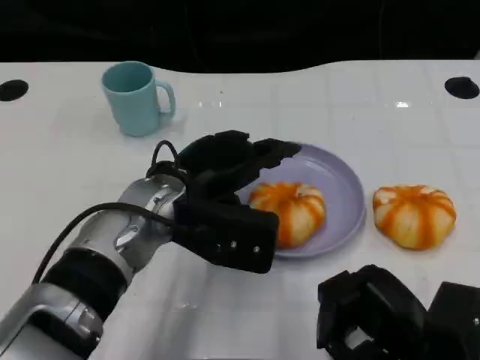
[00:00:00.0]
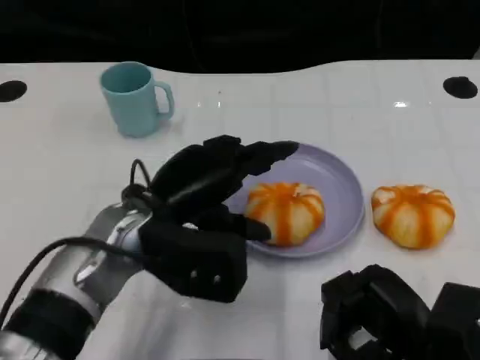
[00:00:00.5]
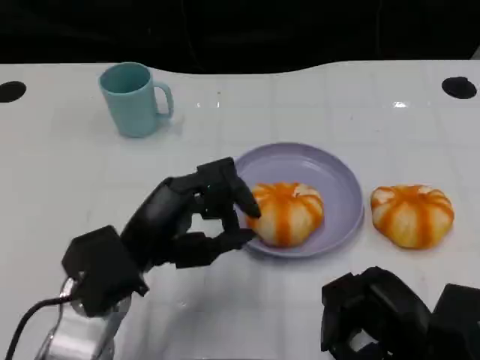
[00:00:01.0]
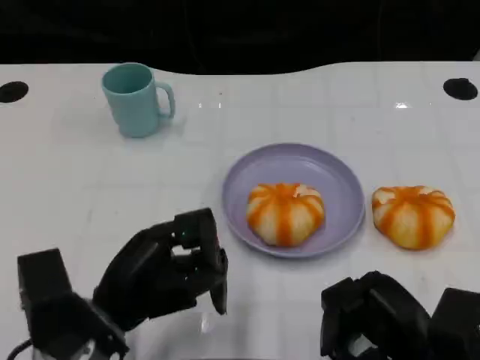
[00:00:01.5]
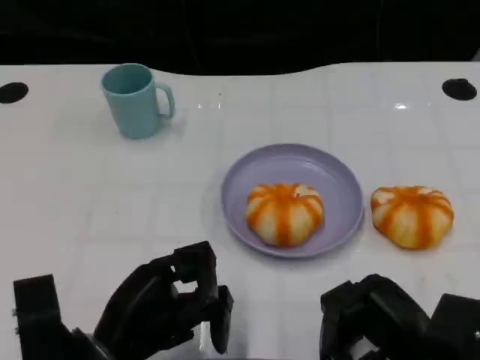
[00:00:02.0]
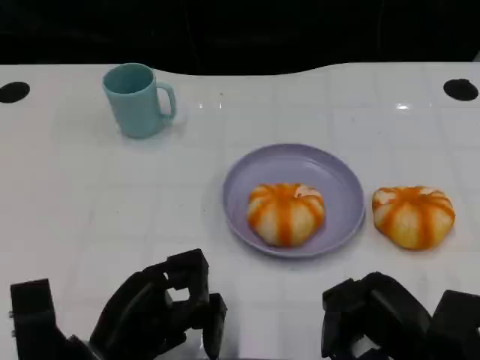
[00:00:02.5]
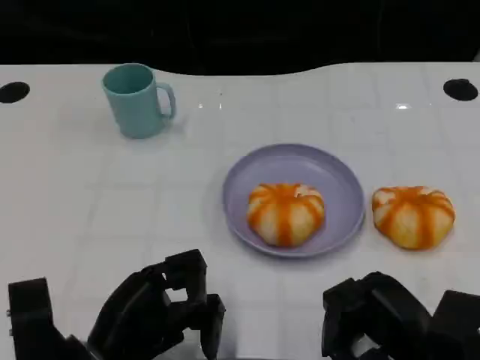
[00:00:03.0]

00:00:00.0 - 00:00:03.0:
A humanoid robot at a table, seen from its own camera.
Task of the whole recording: Grasp the bread from the table and place it into the plate.
00:00:00.0 - 00:00:01.5: The left hand moves backward, to the left and downward, about 15 cm.
00:00:01.5 - 00:00:03.0: The hands move only a little.

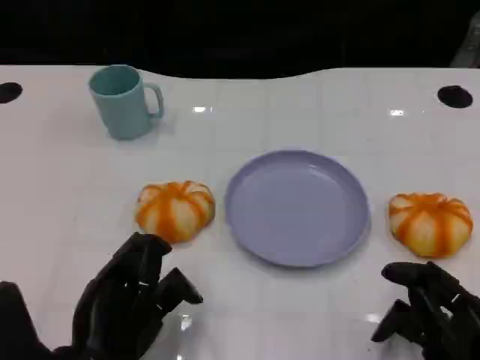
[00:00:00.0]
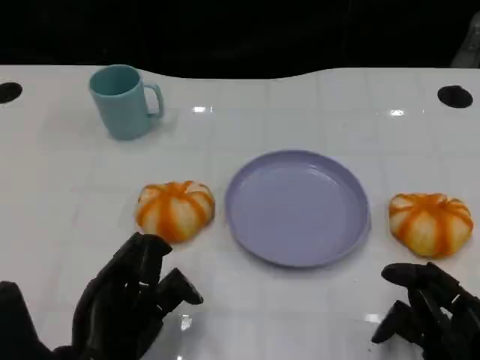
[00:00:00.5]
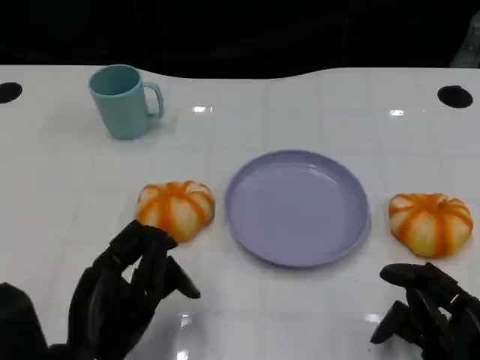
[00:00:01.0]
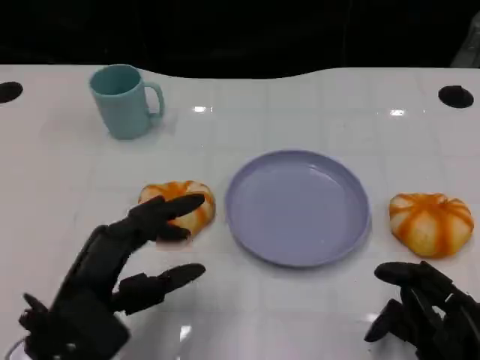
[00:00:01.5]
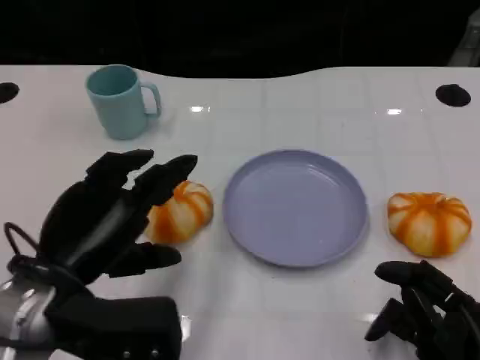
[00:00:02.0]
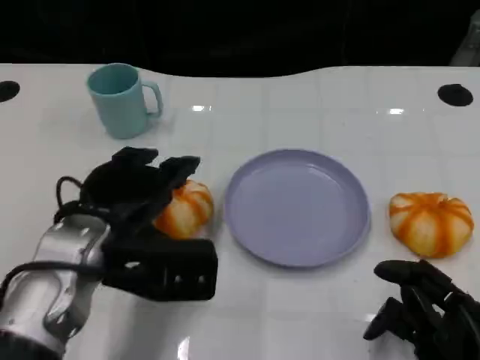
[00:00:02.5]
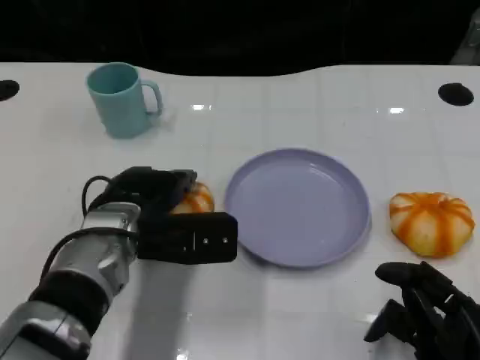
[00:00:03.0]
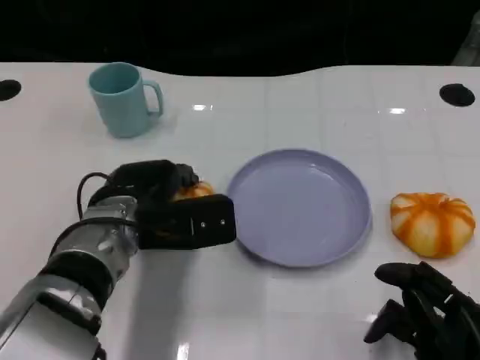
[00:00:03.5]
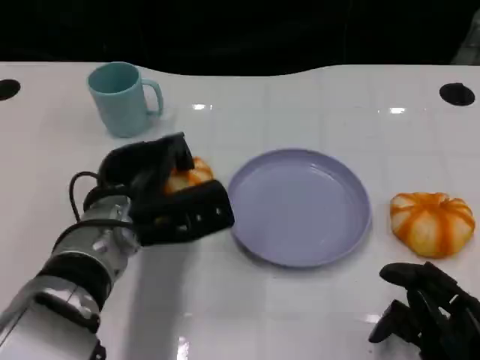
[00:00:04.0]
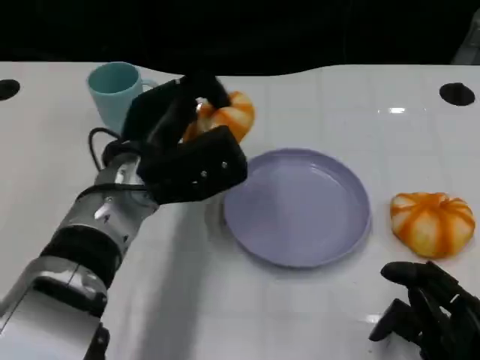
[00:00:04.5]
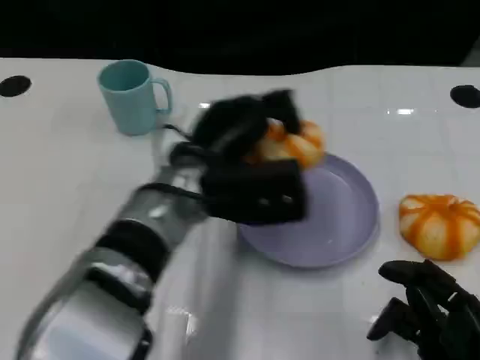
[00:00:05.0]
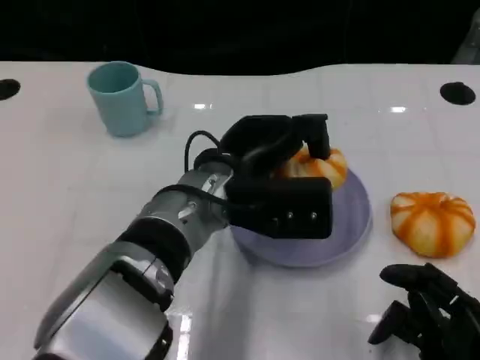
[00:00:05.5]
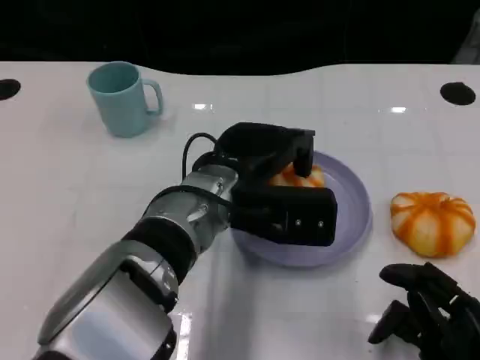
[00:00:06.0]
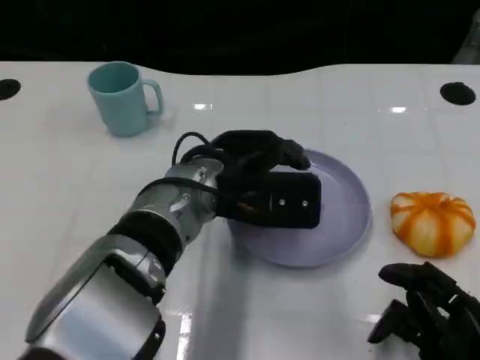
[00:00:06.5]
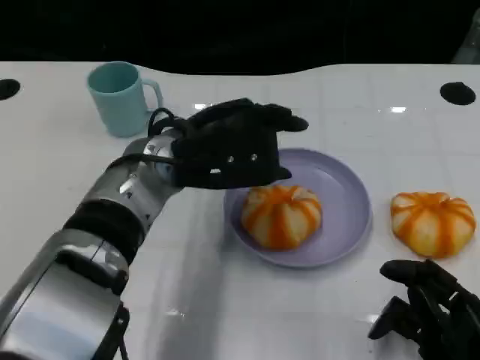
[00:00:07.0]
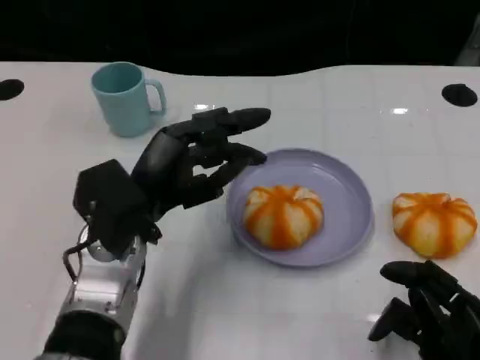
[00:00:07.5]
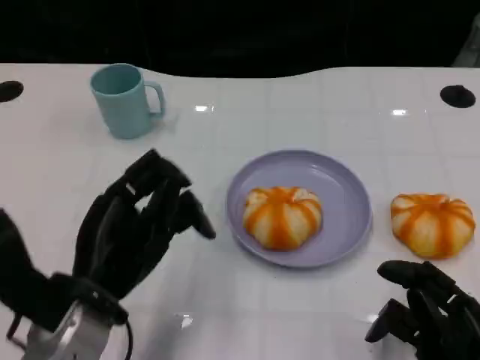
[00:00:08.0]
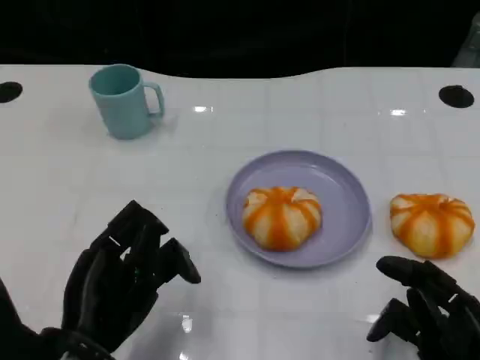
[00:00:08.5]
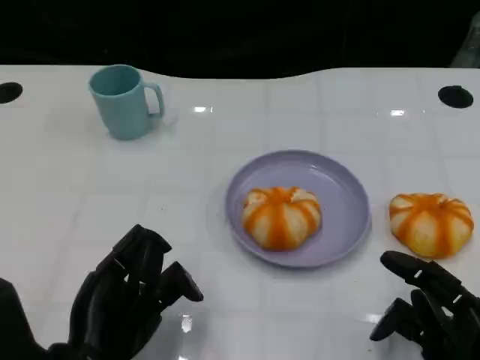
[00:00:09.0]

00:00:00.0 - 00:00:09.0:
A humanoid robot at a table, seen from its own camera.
Task of the whole recording: Grasp the bread from the table and place it into the plate.
00:00:00.0 - 00:00:02.0: The left hand goes some 5 cm upward.
00:00:02.0 - 00:00:04.5: The left hand is displaced forward and to the right by approximately 15 cm.
00:00:07.0 - 00:00:09.0: The left hand goes some 20 cm backward, to the left and downward.

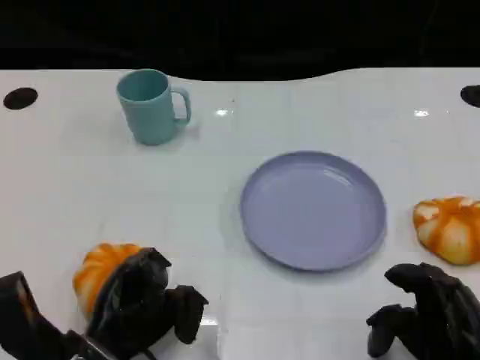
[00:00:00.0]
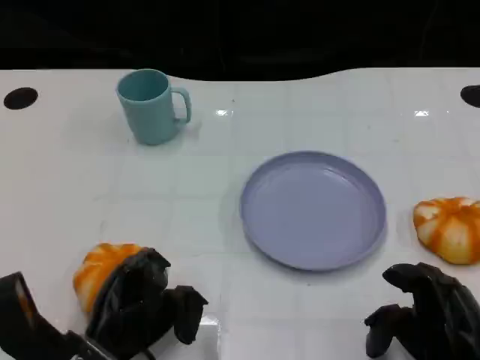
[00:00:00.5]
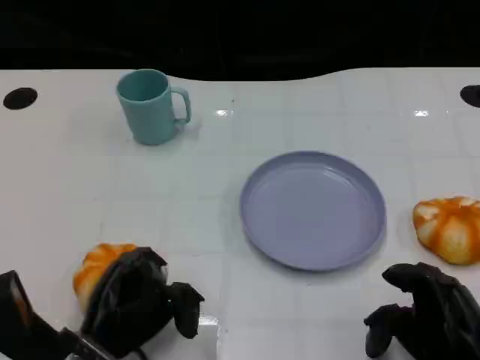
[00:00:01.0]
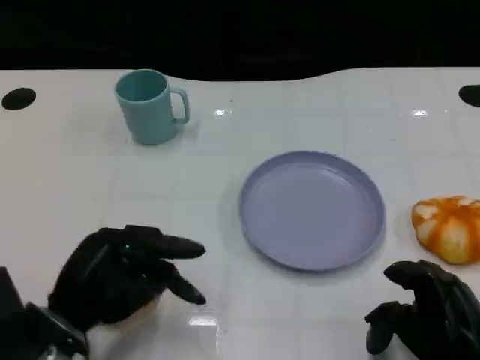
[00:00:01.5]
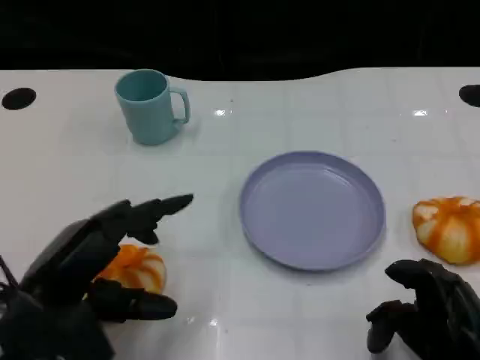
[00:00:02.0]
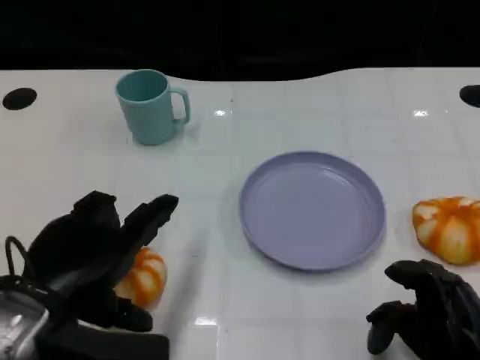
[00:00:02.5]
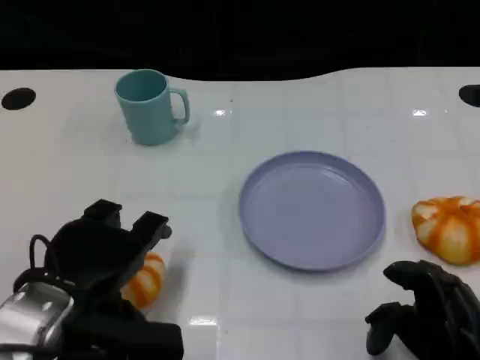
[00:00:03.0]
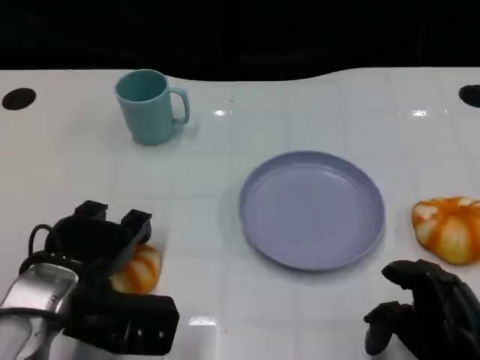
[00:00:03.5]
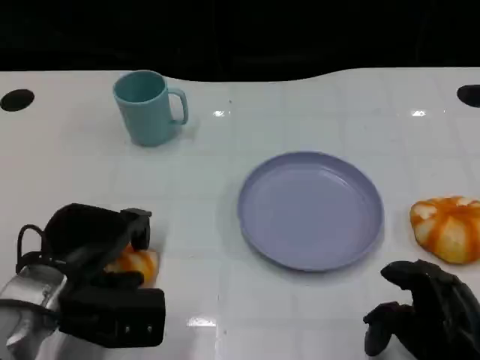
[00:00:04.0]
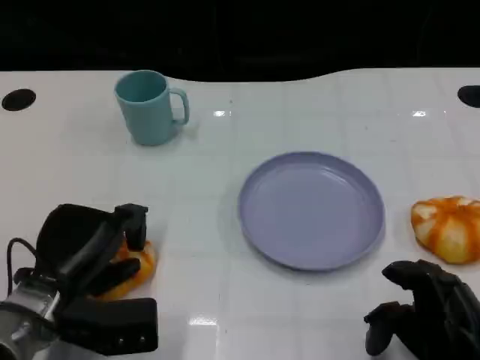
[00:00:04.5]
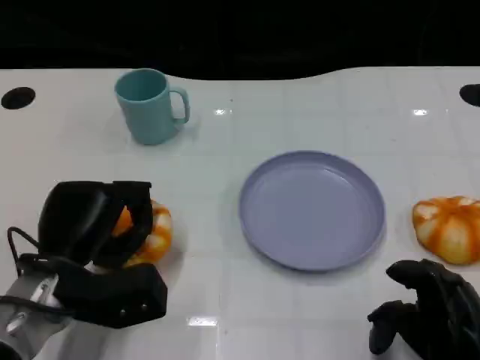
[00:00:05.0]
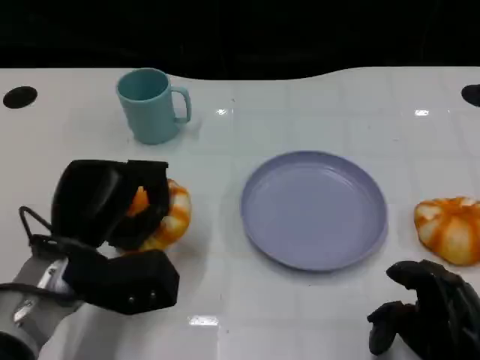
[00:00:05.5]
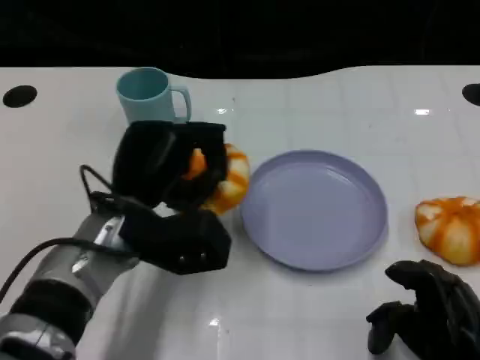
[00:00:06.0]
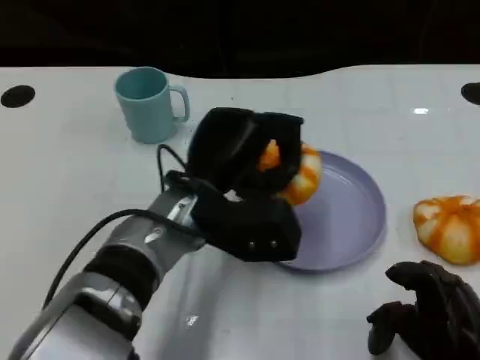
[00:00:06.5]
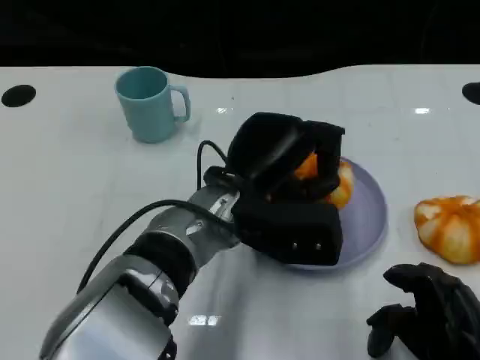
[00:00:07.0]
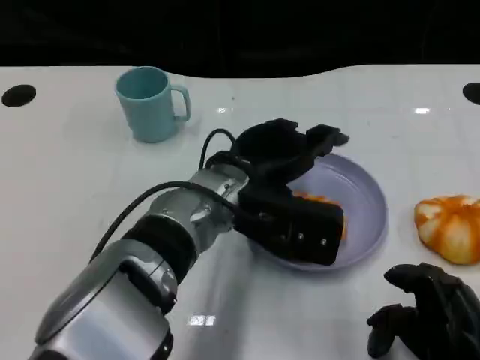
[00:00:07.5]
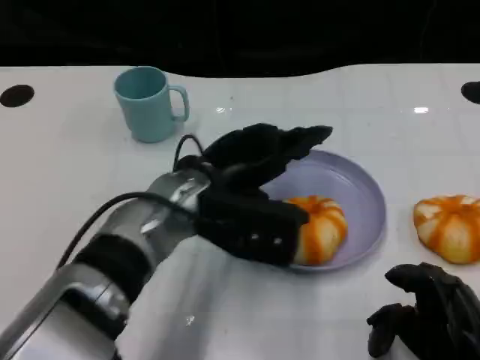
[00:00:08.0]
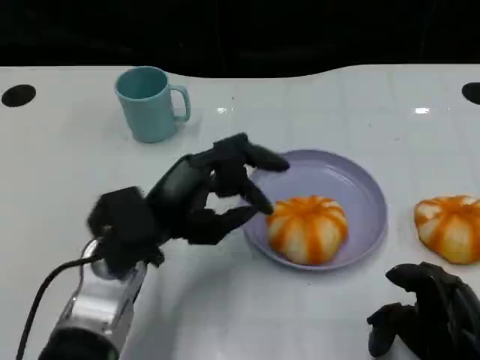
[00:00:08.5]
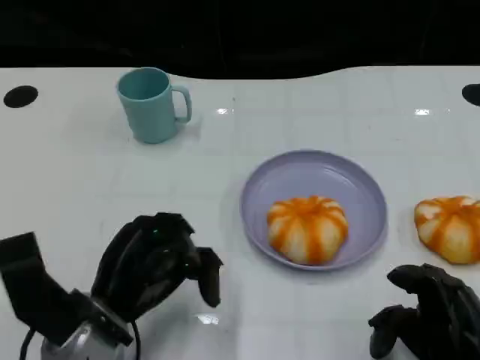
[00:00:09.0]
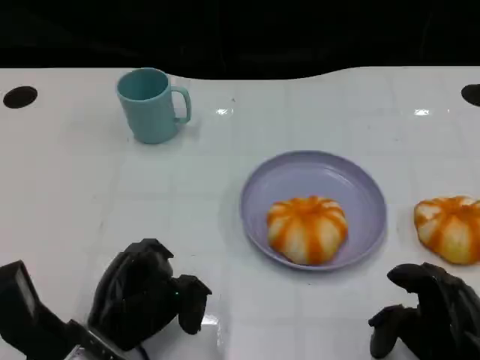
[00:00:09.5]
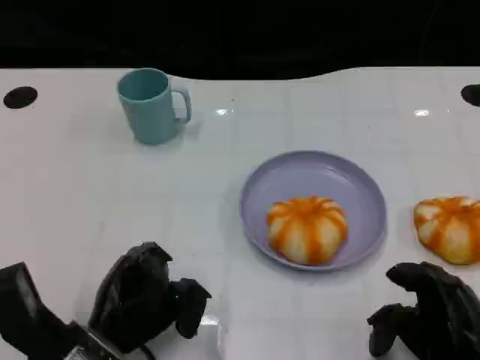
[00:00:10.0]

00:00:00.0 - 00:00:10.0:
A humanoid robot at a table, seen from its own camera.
Task of the whole recording: Grasp the bread from the table and place it into the plate.
00:00:00.0 - 00:00:02.0: The left hand travels upward by some 10 cm.
00:00:02.0 - 00:00:04.0: The left hand travels forward and downward by approximately 10 cm.
00:00:04.0 - 00:00:06.0: The left hand heads to the right, covering approximately 10 cm.
00:00:06.0 - 00:00:08.0: The left hand travels to the right by roughly 5 cm.
00:00:08.0 - 00:00:10.0: The left hand heads downward, to the left and backward, covering approximately 20 cm.

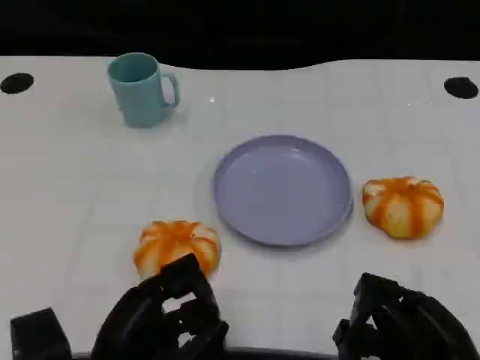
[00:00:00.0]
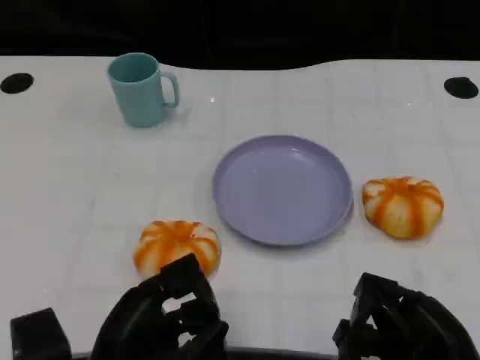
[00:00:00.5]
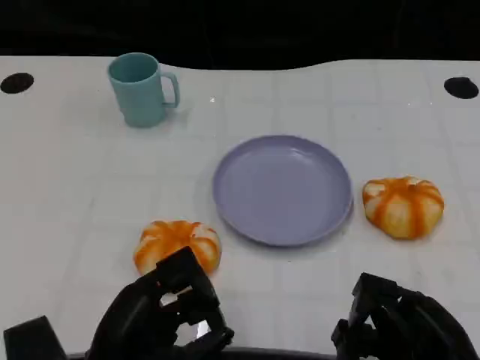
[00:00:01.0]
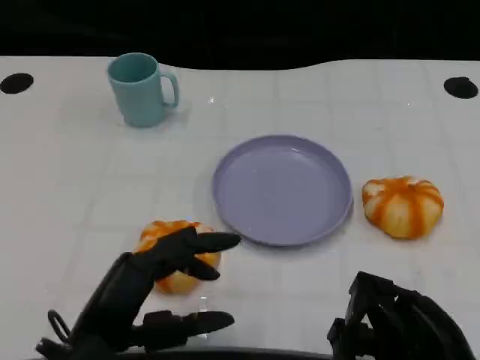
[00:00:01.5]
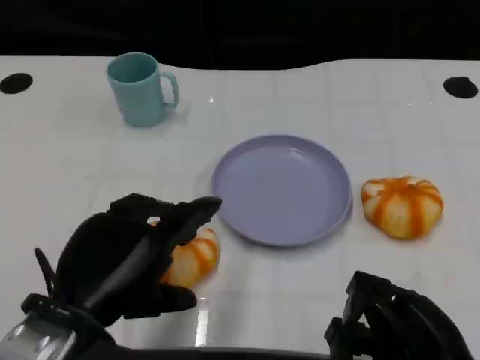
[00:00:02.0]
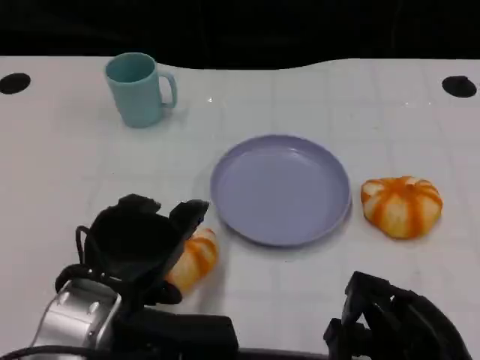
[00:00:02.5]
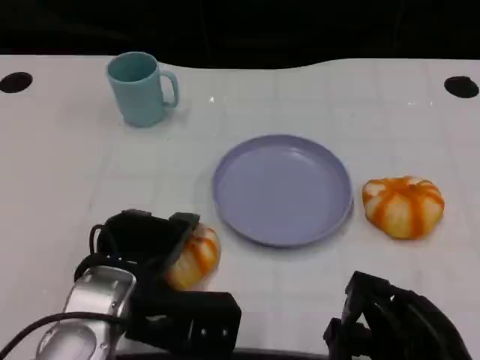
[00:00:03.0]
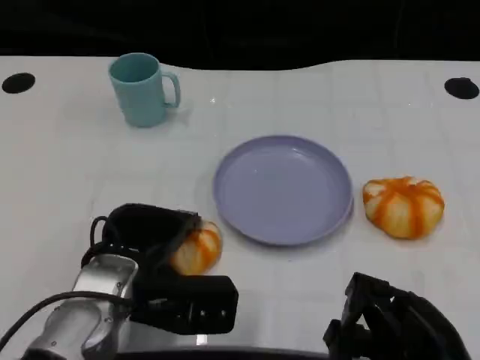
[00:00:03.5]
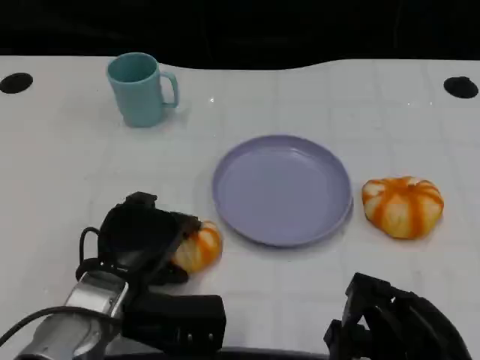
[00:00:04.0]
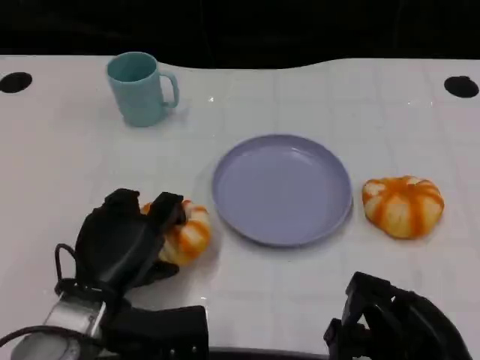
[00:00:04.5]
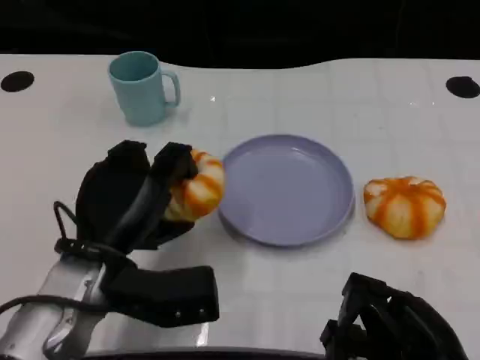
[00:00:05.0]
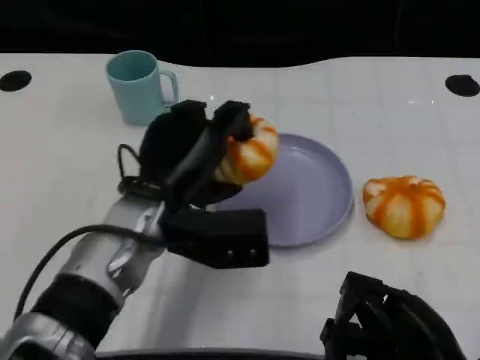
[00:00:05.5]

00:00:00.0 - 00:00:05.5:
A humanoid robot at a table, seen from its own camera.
Task of the whole recording: Grasp the bread from the table and place it into the plate.
00:00:00.0 - 00:00:02.0: The left hand travels upward by approximately 10 cm.
00:00:02.0 - 00:00:03.5: The left hand moves forward and downward, about 10 cm.
00:00:03.5 - 00:00:05.5: The left hand ends up some 10 cm from where it was.
